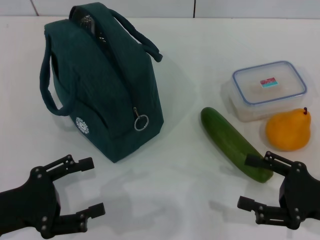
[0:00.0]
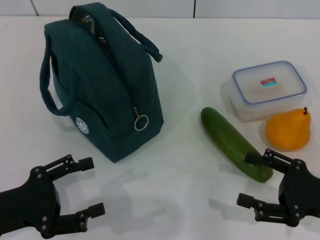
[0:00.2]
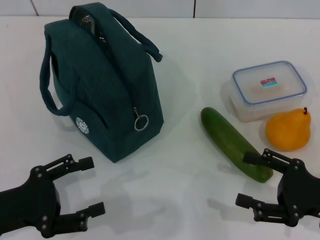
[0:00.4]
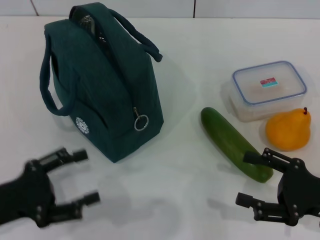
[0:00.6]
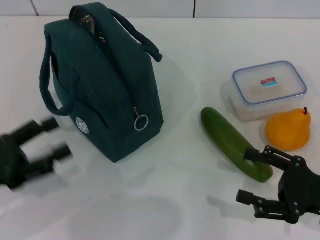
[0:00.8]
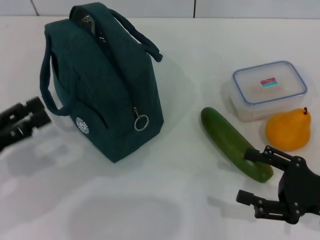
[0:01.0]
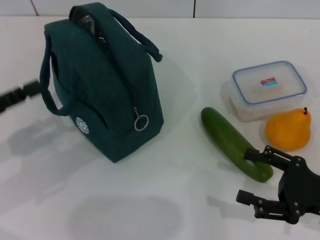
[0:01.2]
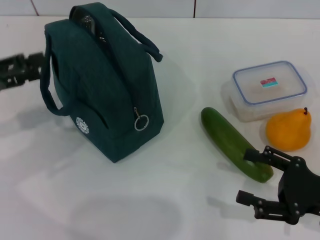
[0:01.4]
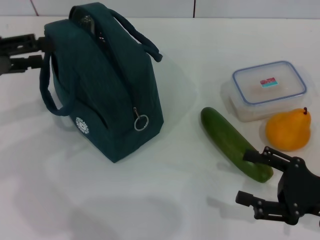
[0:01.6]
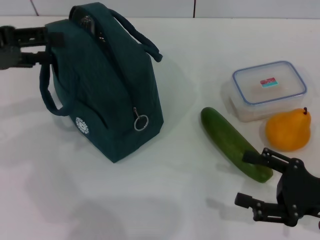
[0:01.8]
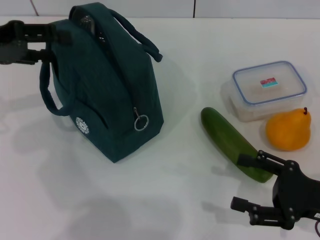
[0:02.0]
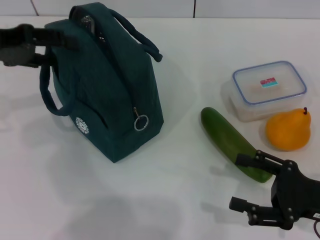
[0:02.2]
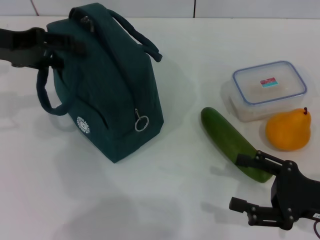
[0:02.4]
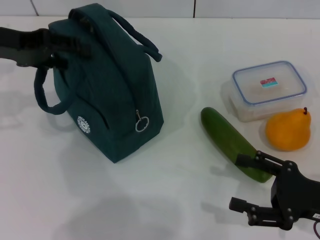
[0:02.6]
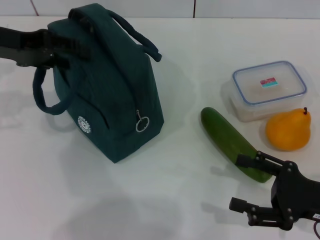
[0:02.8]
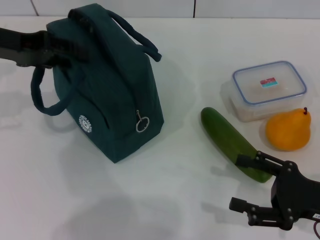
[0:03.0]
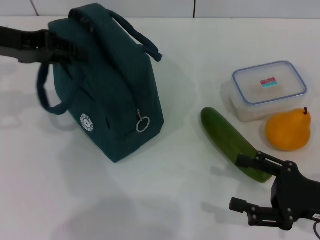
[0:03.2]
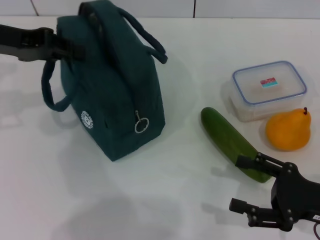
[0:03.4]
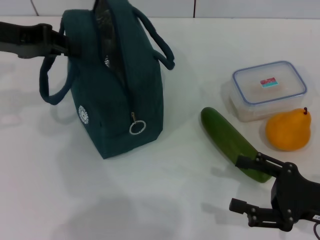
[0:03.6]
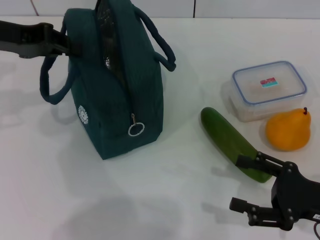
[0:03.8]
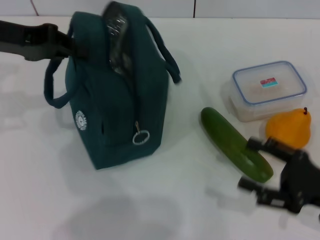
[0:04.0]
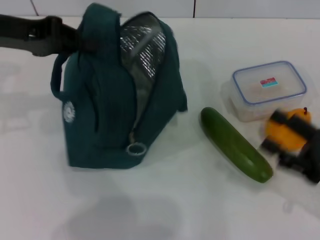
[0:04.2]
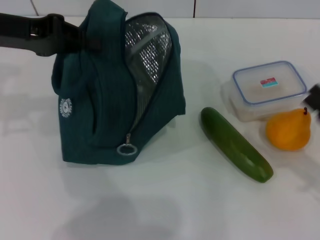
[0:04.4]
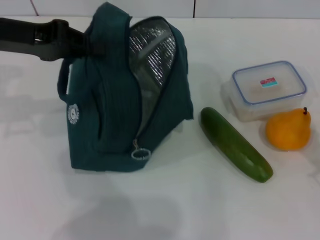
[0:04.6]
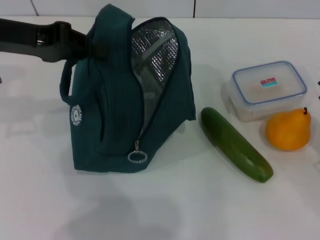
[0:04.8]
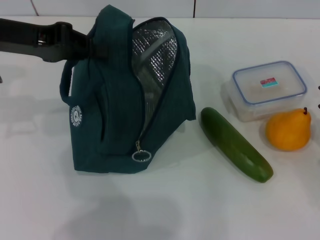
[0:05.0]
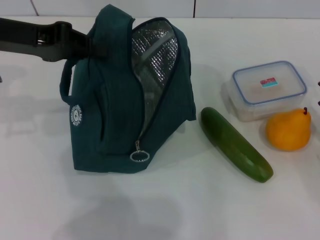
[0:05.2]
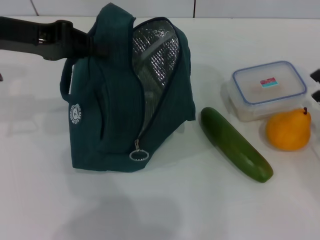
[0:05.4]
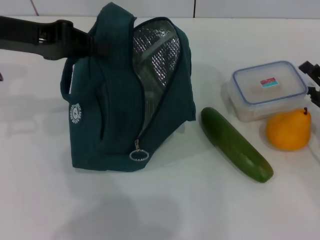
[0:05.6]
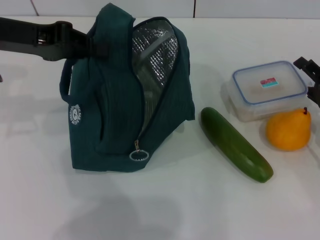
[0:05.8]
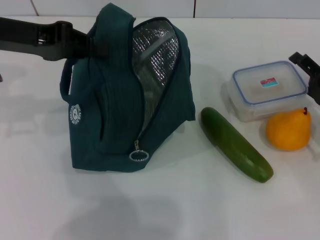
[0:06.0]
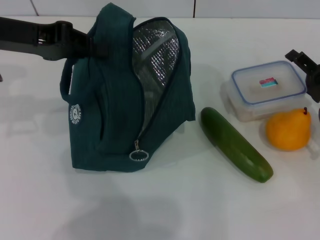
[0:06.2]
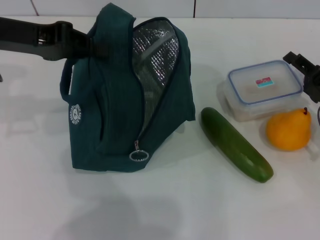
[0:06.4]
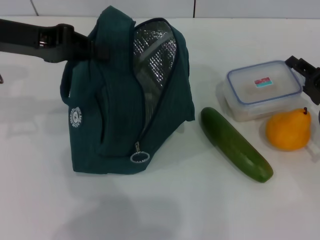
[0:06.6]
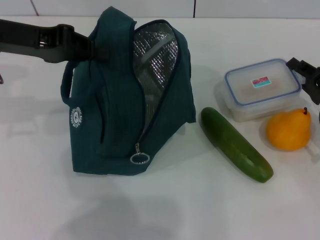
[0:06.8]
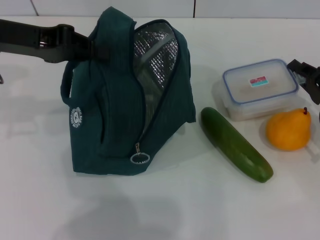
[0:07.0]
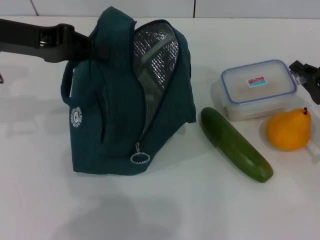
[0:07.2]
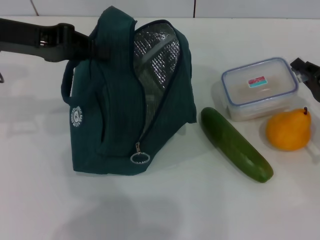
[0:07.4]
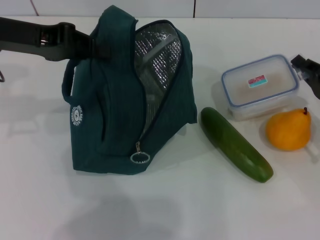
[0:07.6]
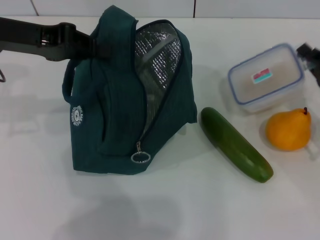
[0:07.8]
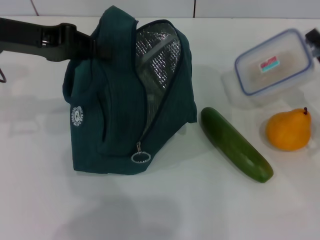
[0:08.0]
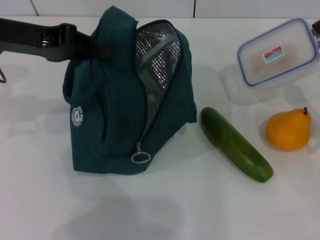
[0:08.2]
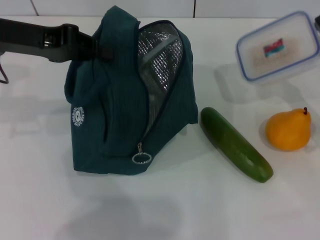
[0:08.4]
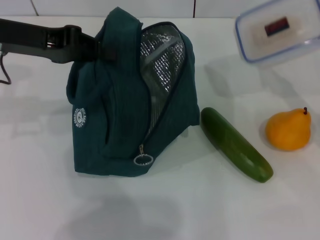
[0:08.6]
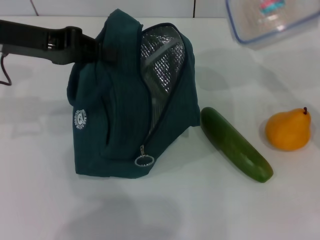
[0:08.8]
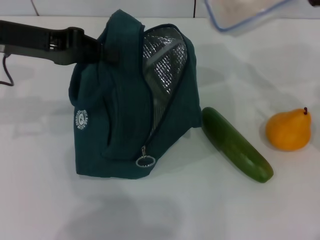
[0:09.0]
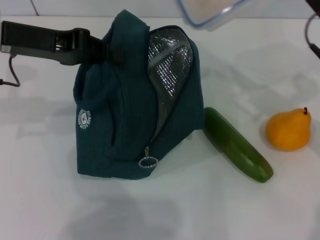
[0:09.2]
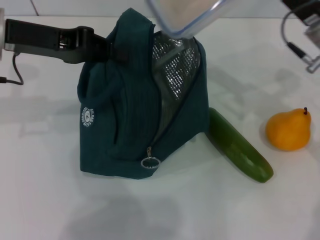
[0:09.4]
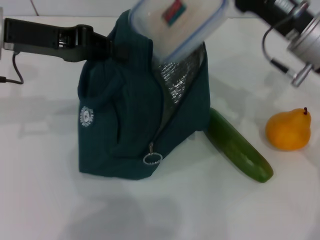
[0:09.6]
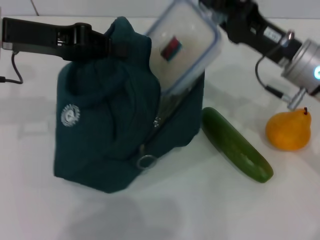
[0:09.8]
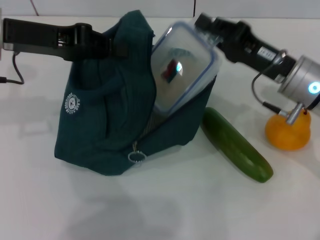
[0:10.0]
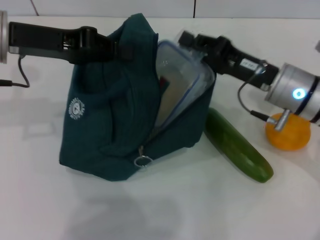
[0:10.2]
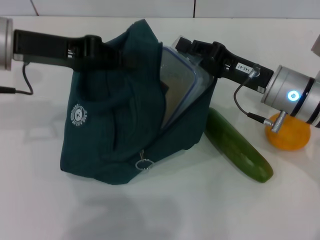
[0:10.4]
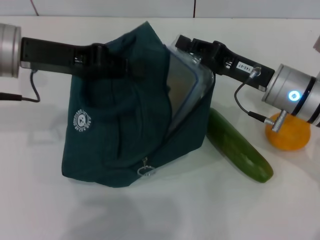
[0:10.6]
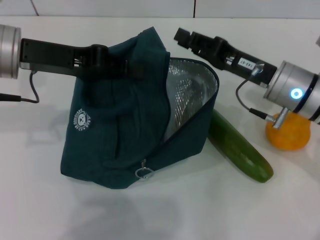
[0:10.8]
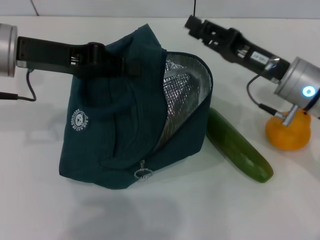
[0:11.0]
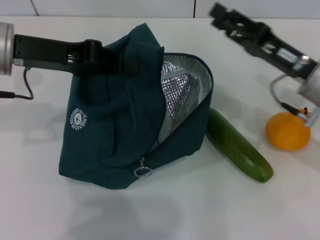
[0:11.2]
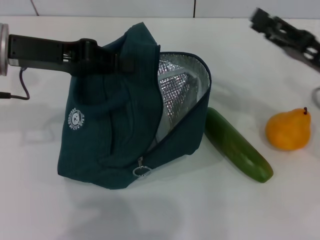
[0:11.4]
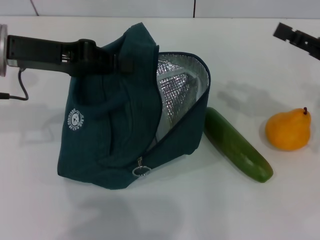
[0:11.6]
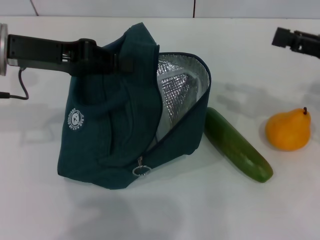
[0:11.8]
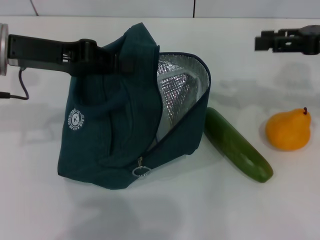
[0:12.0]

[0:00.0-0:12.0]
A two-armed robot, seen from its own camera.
Step, 0:00.0 to 0:04.0: Hold the lunch bag with your left hand.
Step, 0:04.2 to 0:07.4: Pick up the lunch box with your right hand.
Step, 0:07.6 to 0:10.8: Place the lunch box into the lunch bag with your right hand.
0:00.0 to 0:01.6: The left gripper is displaced upward and forward by about 20 cm.
0:01.6 to 0:03.0: The left gripper goes about 5 cm forward.
0:03.0 to 0:04.4: The left gripper closes.
0:04.4 to 0:06.0: The right gripper shifts approximately 10 cm forward.
0:06.0 to 0:07.6: The right gripper closes.
0:07.6 to 0:09.0: The right gripper travels upward by roughly 10 cm.
0:09.0 to 0:10.4: The right gripper shifts about 10 cm to the left.
0:10.4 to 0:12.0: The right gripper shifts approximately 15 cm to the right and upward, and opens up.

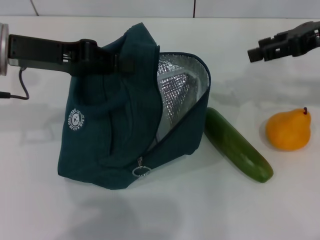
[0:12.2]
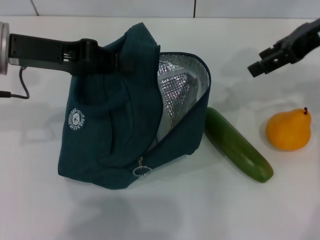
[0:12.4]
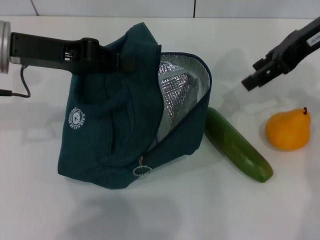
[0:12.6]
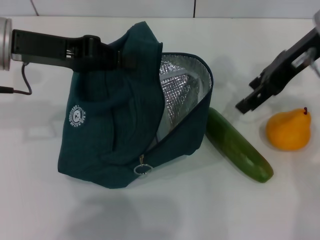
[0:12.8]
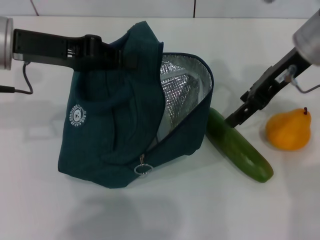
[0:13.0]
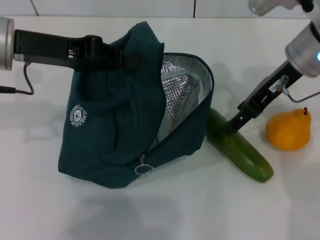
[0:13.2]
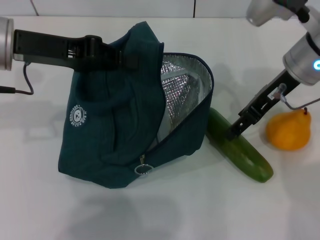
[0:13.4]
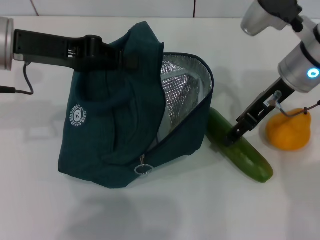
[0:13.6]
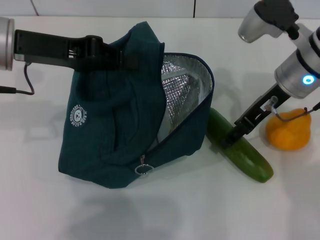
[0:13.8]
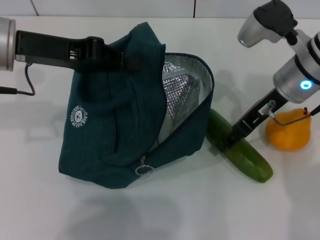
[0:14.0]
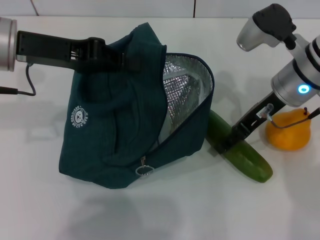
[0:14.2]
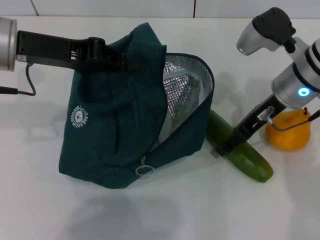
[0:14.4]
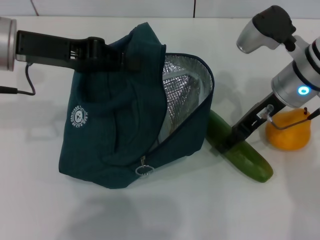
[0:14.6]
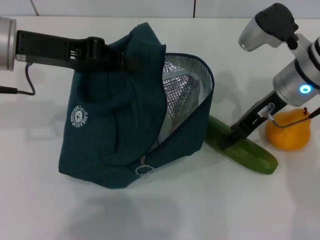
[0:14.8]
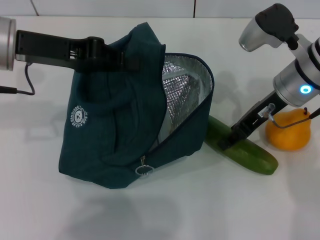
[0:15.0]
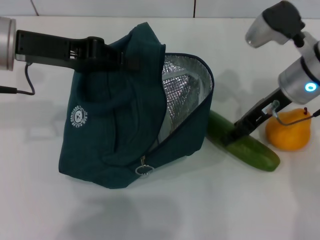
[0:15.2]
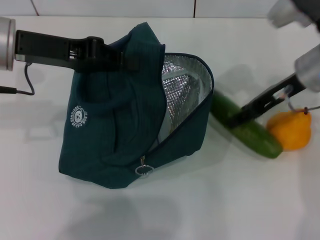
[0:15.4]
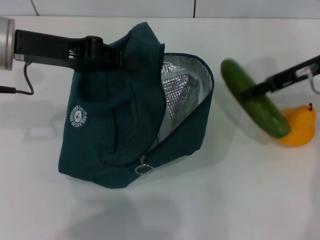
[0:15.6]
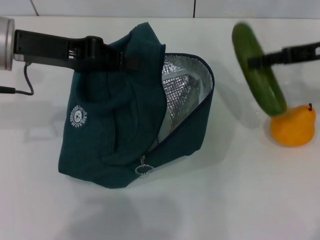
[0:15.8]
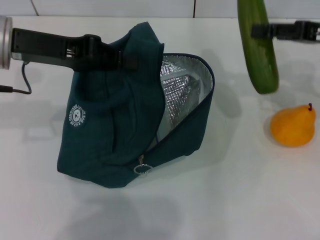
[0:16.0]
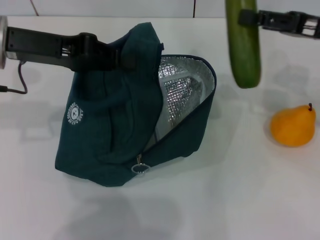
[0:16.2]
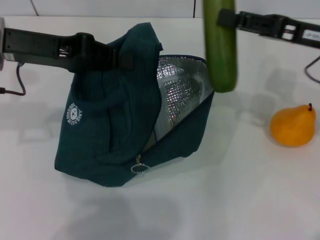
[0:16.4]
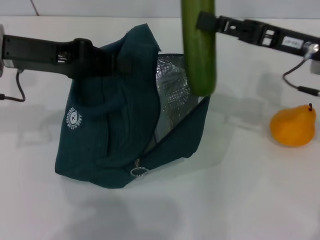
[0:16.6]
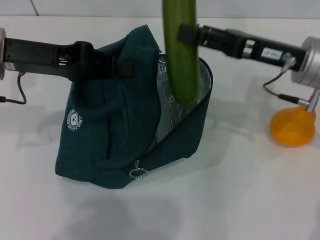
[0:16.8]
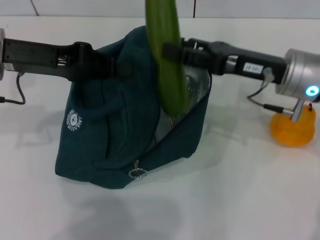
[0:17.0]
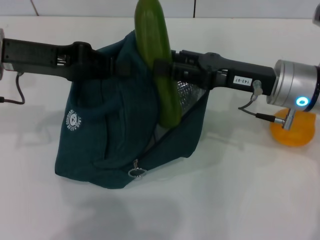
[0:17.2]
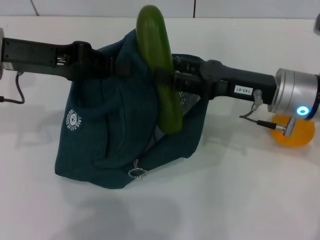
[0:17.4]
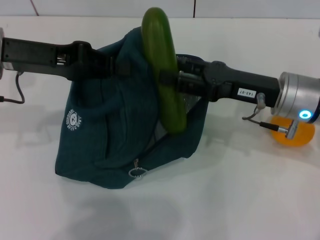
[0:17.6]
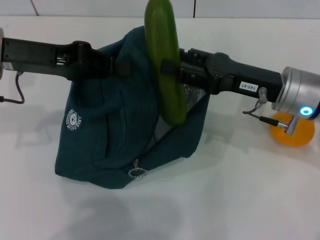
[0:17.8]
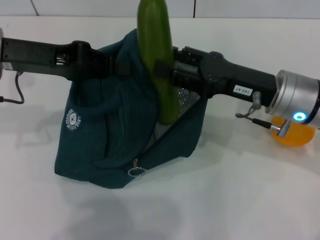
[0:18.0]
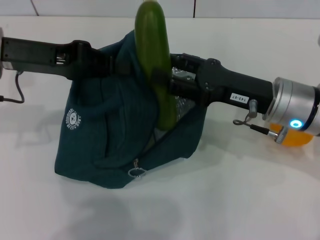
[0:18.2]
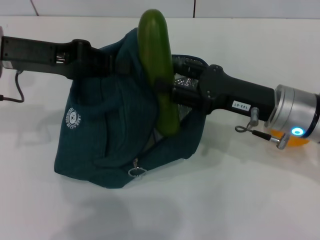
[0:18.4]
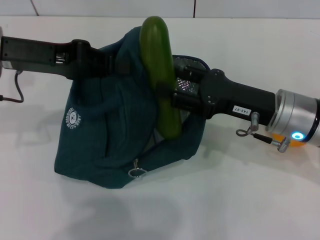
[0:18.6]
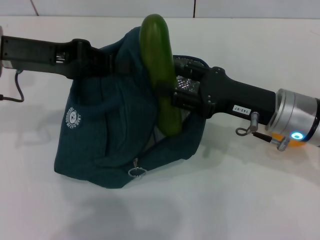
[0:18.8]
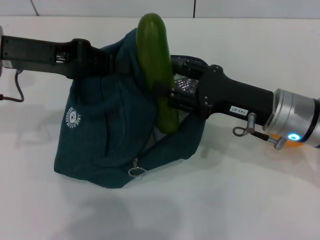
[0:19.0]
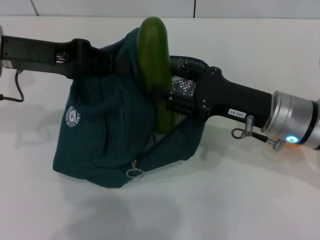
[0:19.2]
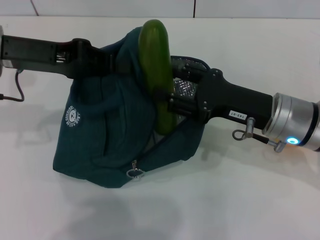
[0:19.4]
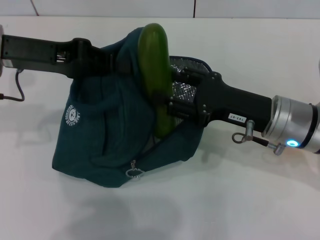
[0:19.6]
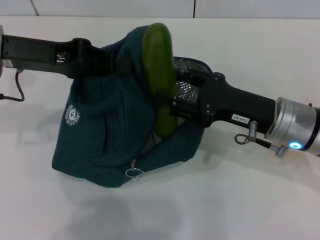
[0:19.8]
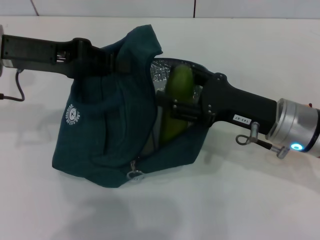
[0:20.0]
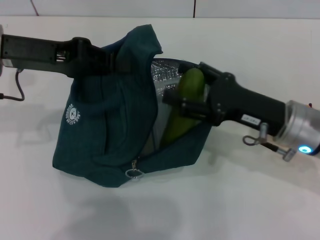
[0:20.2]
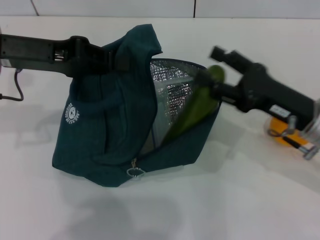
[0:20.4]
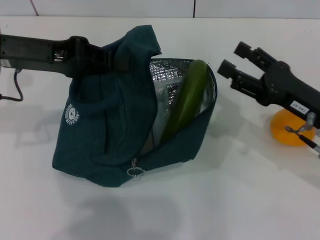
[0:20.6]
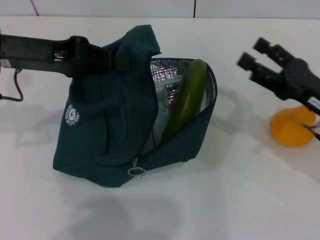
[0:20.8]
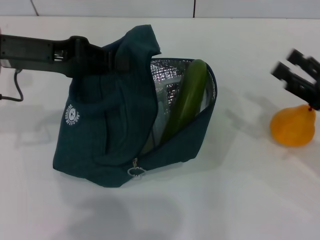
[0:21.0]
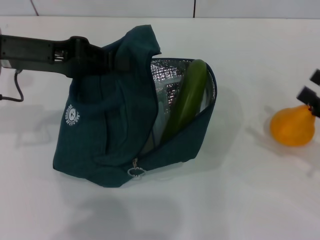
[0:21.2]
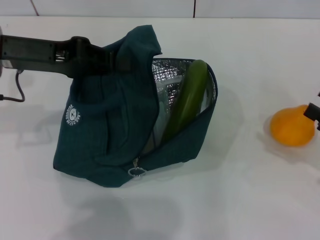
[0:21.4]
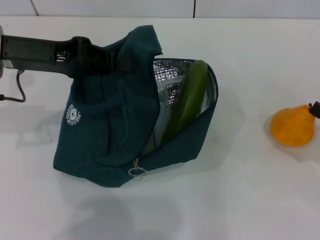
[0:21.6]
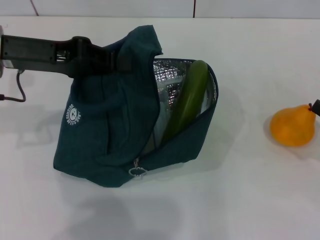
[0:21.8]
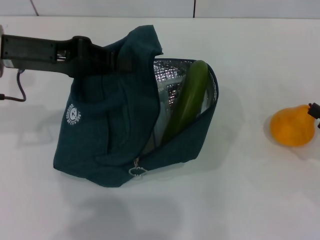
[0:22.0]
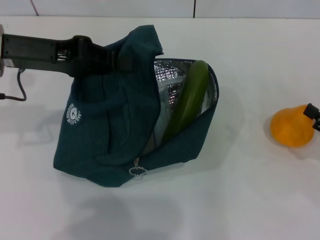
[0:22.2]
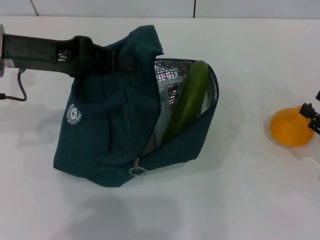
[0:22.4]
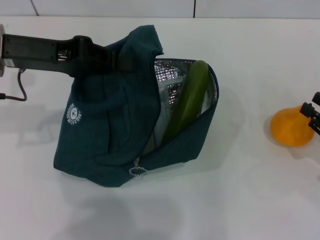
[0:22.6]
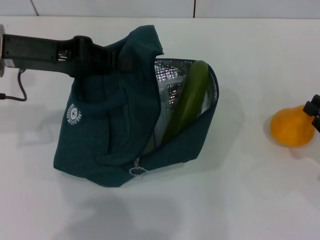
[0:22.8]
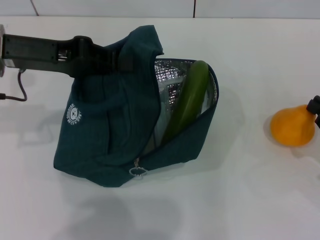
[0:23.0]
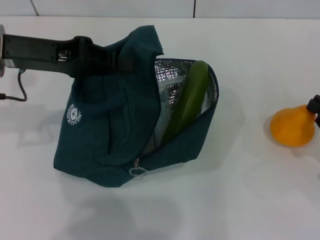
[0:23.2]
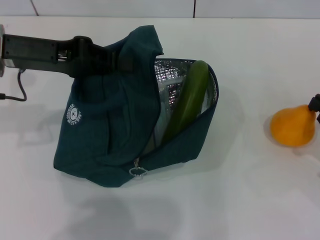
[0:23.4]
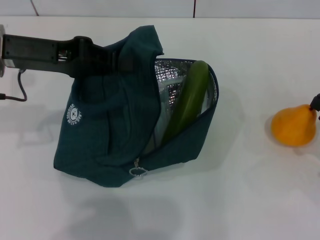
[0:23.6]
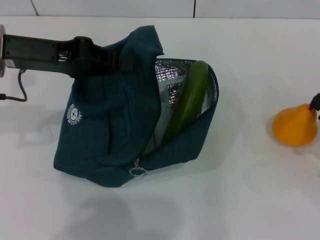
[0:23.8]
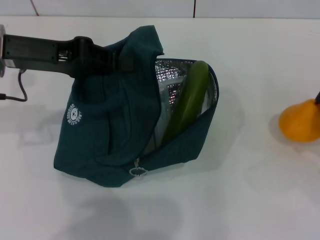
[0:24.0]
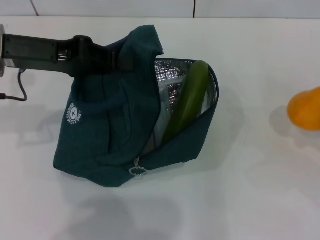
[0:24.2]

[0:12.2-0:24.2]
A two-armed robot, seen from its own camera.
Step, 0:12.2 to 0:15.0: Pick up the cucumber with your right hand.
Step, 0:15.2 to 0:20.6: Put the cucumber into the lunch bag with your right hand.
Step, 0:20.8 to 0:23.8: Grab the pear with your right hand.
0:12.2 to 0:13.8: The right gripper is displaced to the left and downward by about 10 cm.
0:13.8 to 0:15.2: There are only small adjustments of the grippers.
0:16.6 to 0:18.2: The right gripper travels to the left and downward by about 5 cm.
0:18.2 to 0:19.8: There are only small adjustments of the grippers.
0:19.8 to 0:21.2: The right gripper is displaced to the right by about 15 cm.
0:22.6 to 0:24.2: The right gripper closes.
